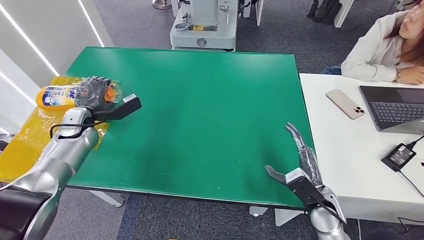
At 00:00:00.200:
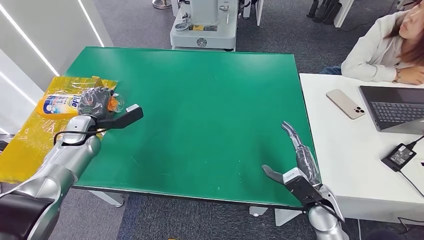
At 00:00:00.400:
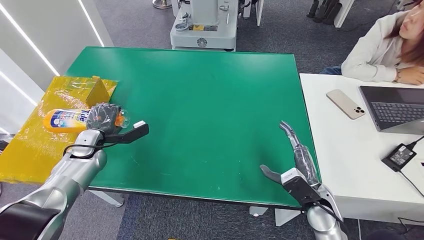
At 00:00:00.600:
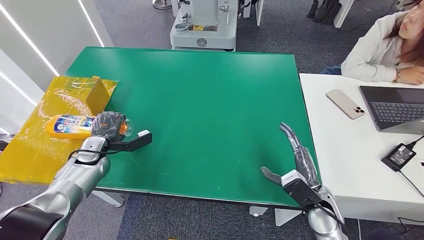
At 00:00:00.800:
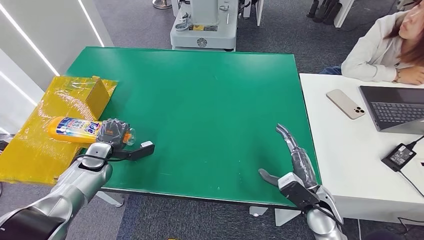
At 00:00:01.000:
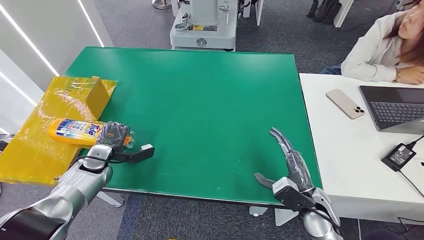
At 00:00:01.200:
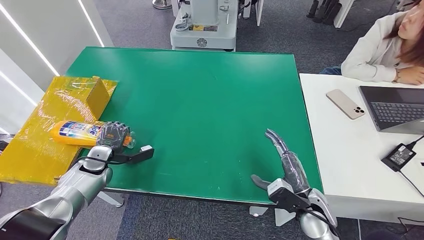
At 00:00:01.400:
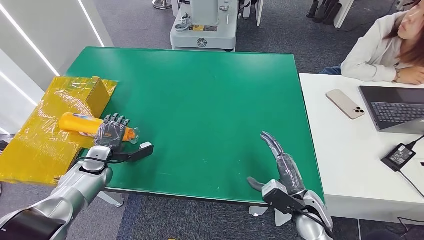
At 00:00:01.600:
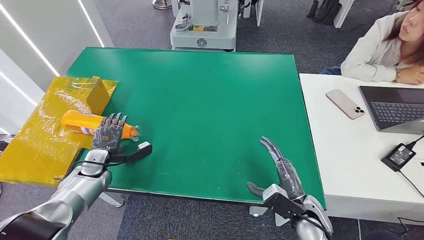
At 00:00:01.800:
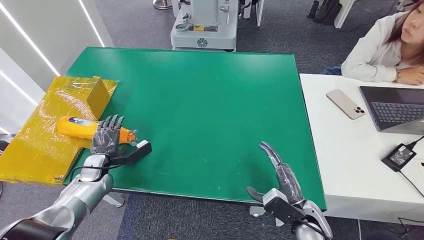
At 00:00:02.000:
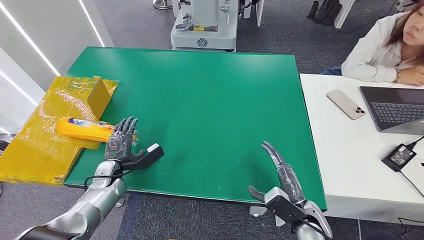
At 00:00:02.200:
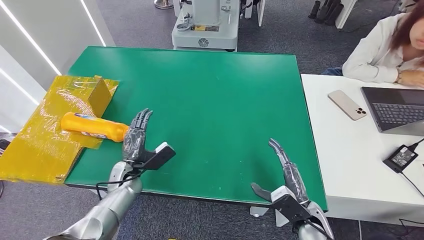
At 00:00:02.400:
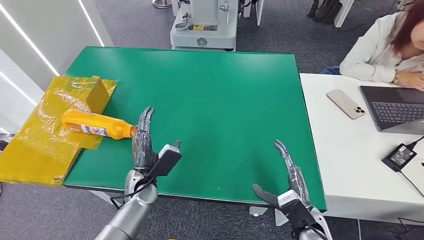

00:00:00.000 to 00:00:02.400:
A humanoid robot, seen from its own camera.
Step, 00:00:00.000 to 00:00:02.400: Turn the bottle to the front side.
00:00:00.000 to 00:00:01.200: The left hand goes about 10 cm downward and backward.
00:00:01.200 to 00:00:02.400: The left hand moves to the right, some 15 cm.

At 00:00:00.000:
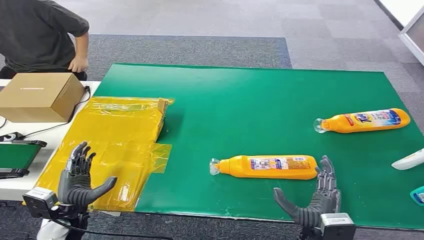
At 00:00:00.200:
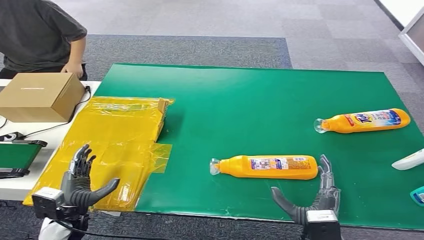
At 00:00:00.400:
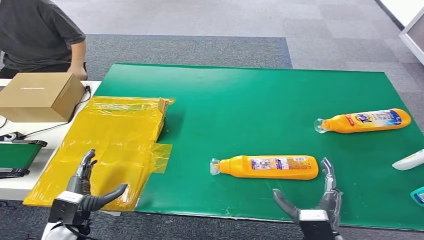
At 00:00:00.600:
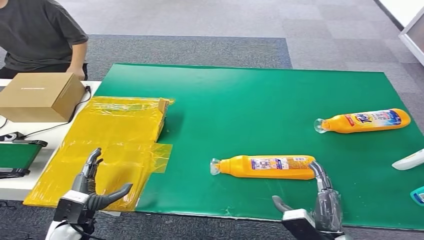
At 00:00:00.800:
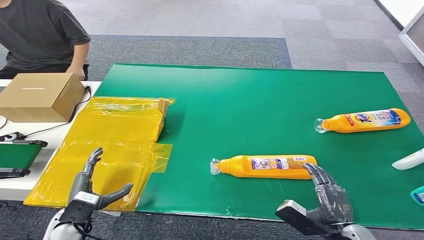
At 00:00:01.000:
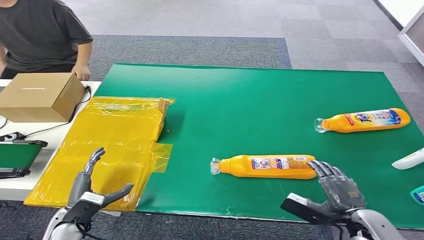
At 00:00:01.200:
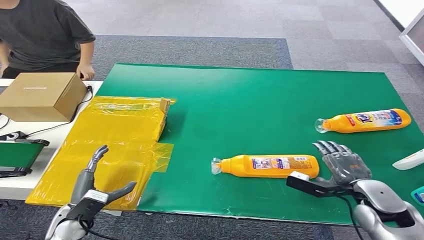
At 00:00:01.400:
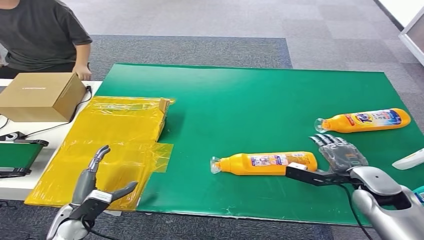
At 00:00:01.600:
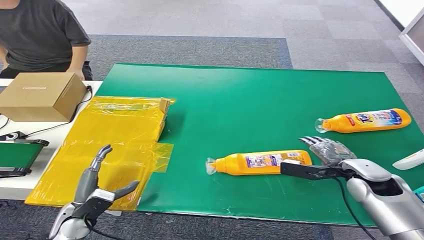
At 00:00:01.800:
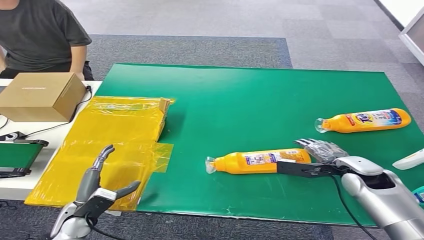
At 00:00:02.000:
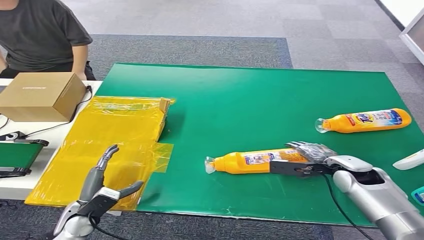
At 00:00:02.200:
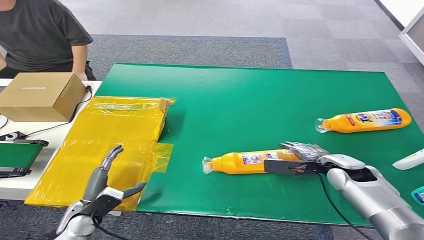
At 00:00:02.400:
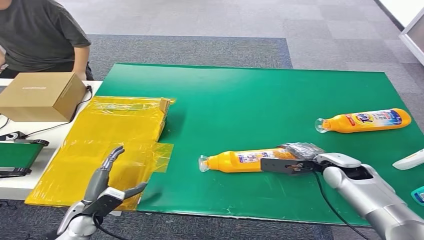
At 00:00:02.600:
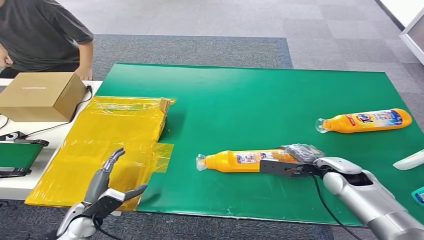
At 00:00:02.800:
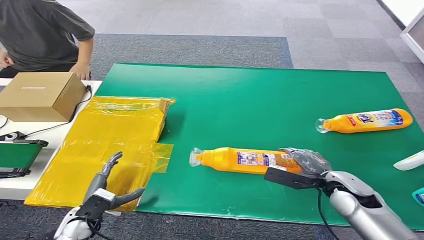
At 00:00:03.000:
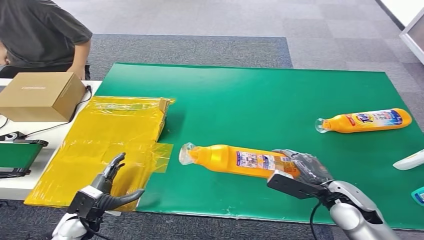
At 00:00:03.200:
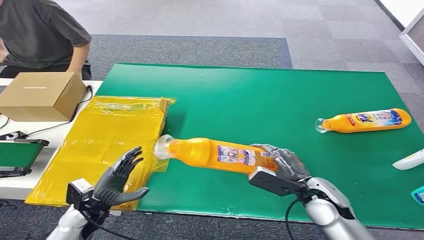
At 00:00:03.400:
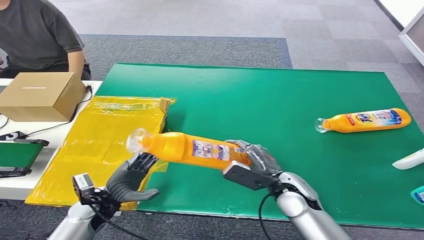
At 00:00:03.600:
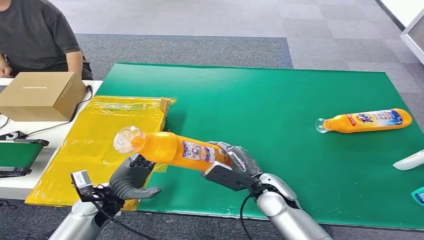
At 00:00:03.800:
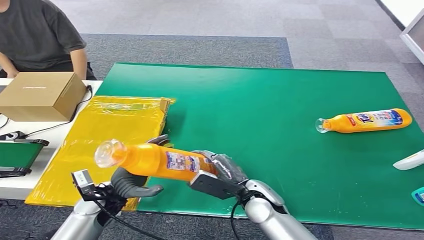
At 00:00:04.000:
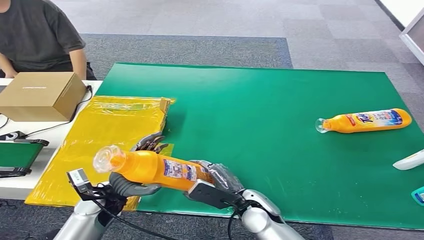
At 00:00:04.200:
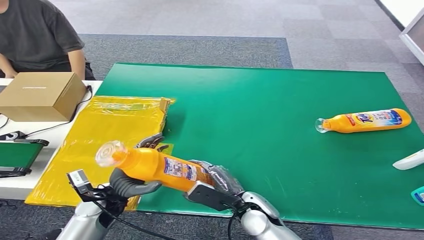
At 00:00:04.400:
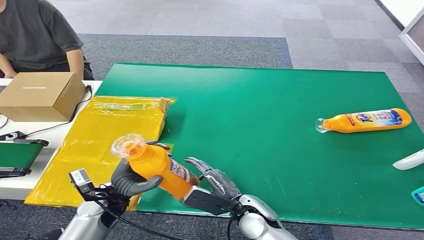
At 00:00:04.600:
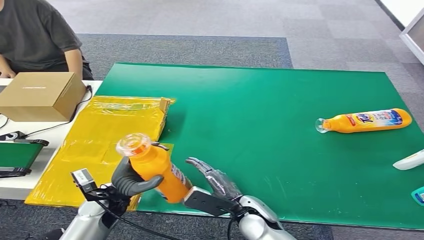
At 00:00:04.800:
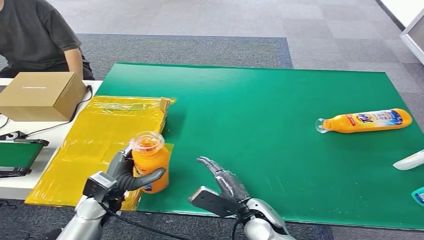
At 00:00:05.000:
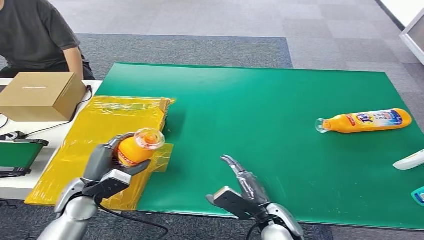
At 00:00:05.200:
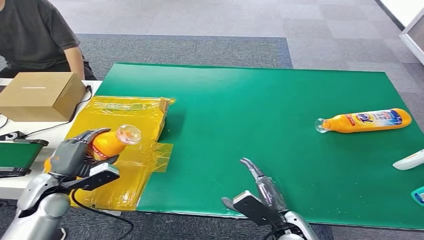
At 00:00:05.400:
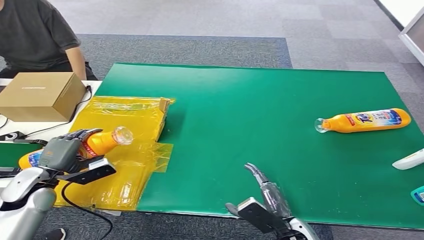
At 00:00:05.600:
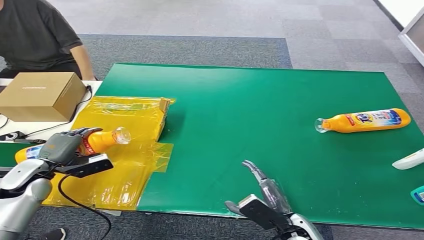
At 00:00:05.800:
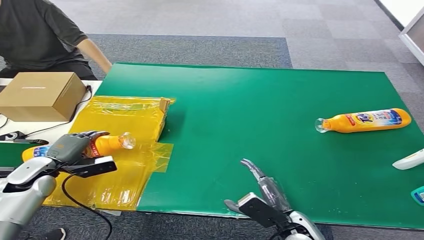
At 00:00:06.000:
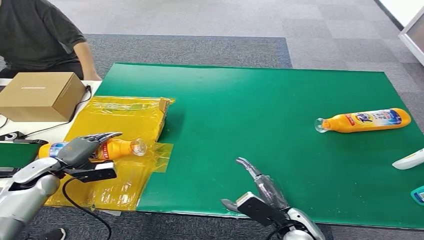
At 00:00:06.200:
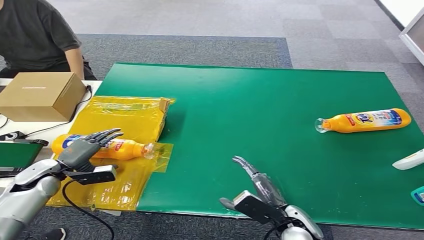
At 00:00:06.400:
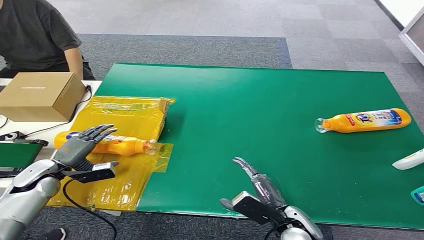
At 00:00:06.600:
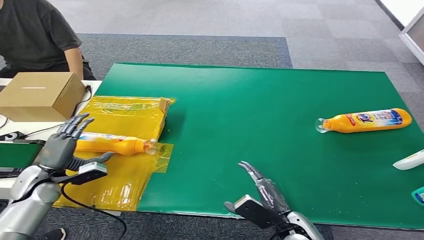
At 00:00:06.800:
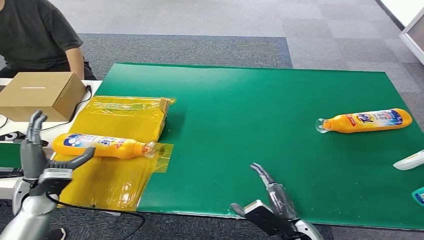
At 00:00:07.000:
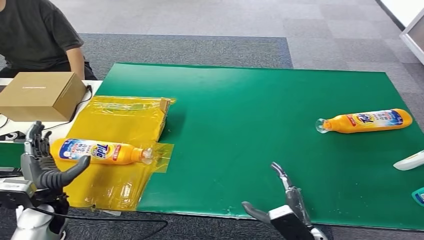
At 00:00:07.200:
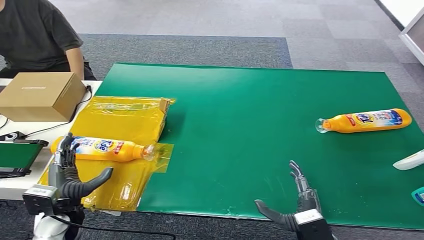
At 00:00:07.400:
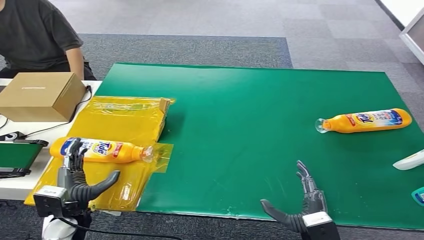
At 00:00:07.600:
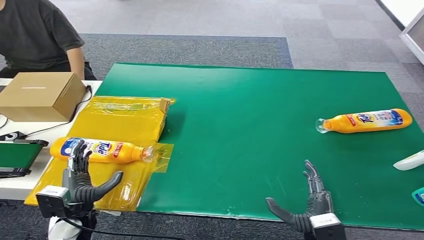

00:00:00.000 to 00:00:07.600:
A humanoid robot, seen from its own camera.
Step, 00:00:00.000 to 00:00:03.400: Pick up the bottle from the table.
Step, 00:00:03.600 to 00:00:07.600: Turn the bottle to the front side.
00:00:01.600 to 00:00:03.000: The right hand moves backward and to the left, about 10 cm.
00:00:03.000 to 00:00:04.600: The right hand heads to the left, covering approximately 20 cm. The left hand travels to the right, upward and forward by roughly 10 cm.
00:00:06.000 to 00:00:07.600: The left hand shifts some 15 cm to the right and backward. Meanwhile the right hand moves backward, roughly 5 cm.
